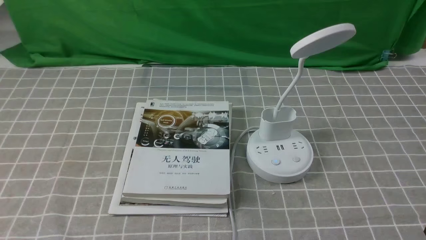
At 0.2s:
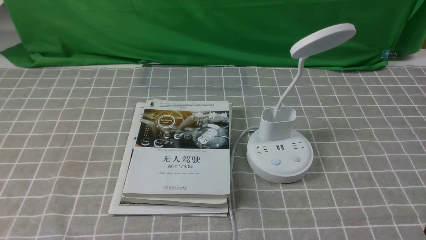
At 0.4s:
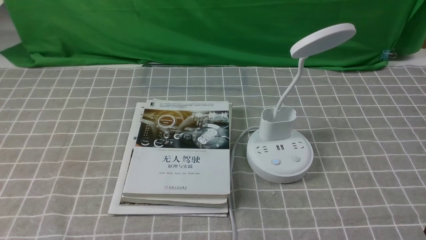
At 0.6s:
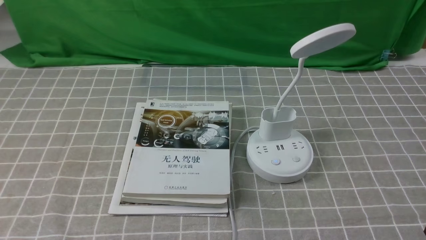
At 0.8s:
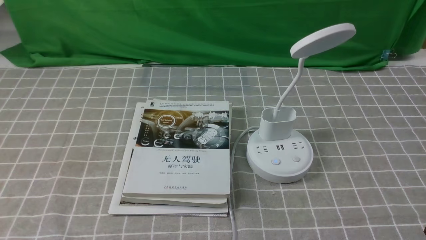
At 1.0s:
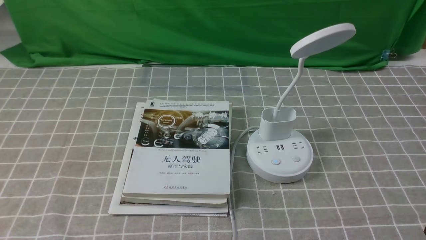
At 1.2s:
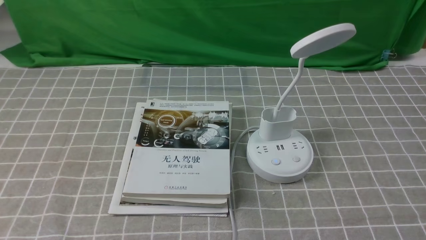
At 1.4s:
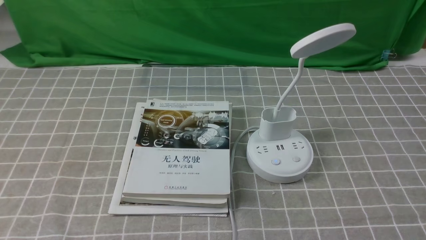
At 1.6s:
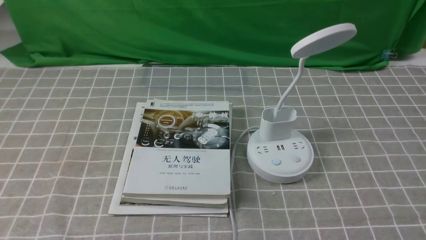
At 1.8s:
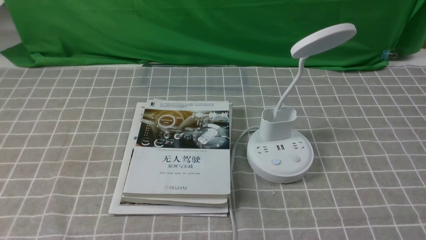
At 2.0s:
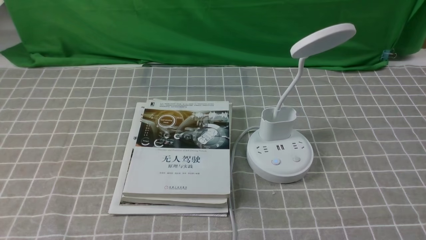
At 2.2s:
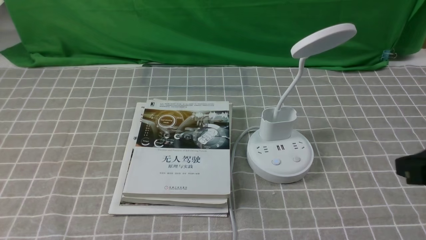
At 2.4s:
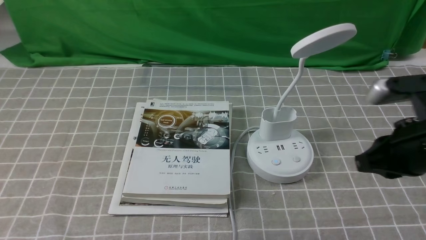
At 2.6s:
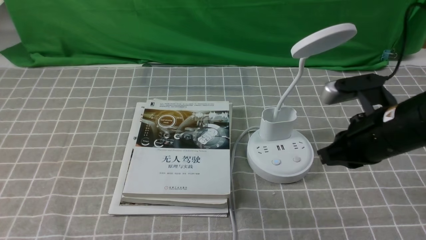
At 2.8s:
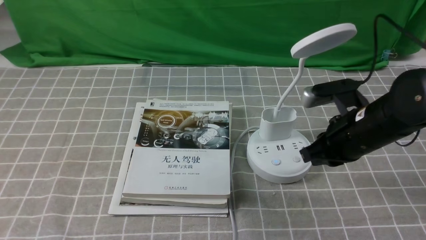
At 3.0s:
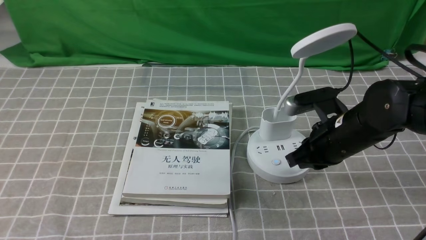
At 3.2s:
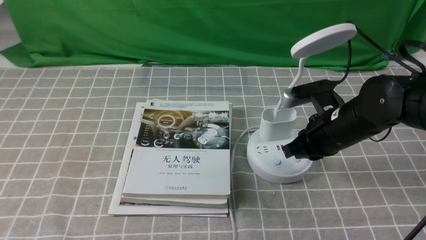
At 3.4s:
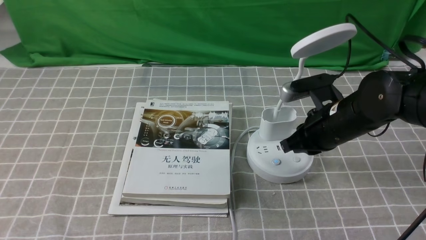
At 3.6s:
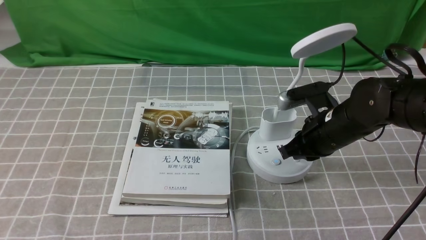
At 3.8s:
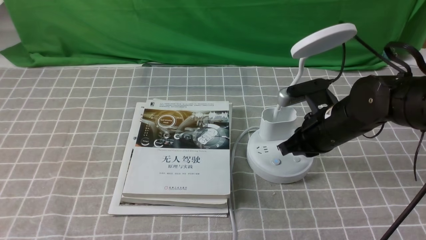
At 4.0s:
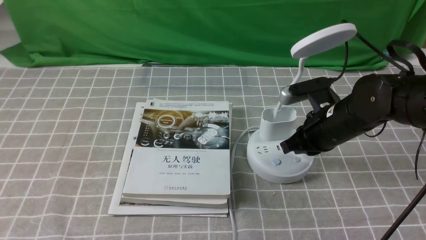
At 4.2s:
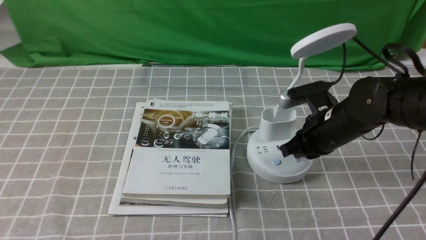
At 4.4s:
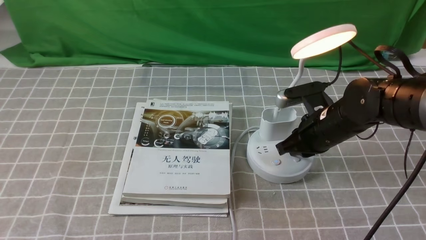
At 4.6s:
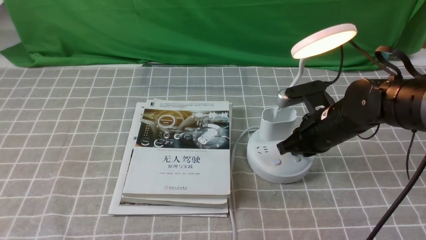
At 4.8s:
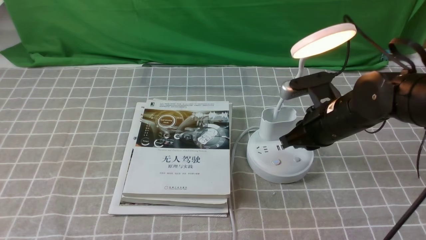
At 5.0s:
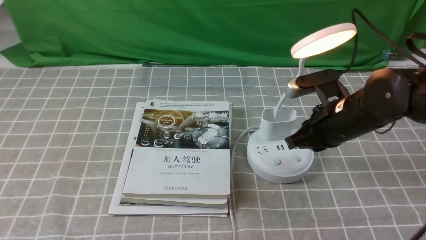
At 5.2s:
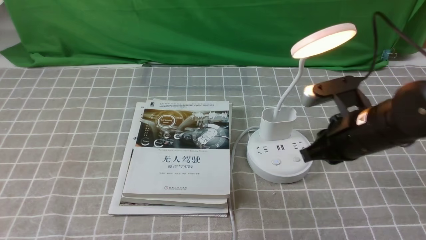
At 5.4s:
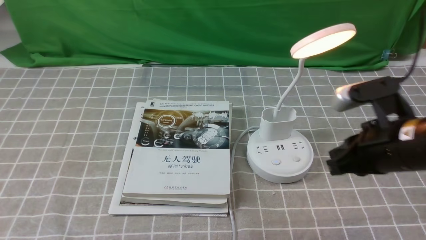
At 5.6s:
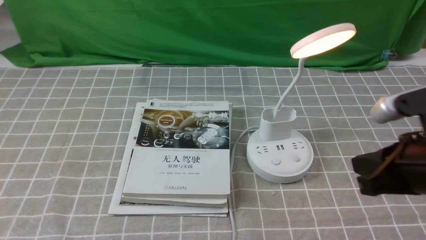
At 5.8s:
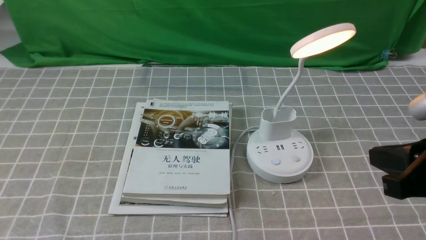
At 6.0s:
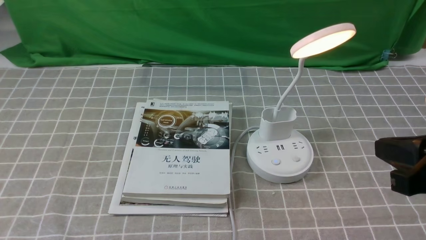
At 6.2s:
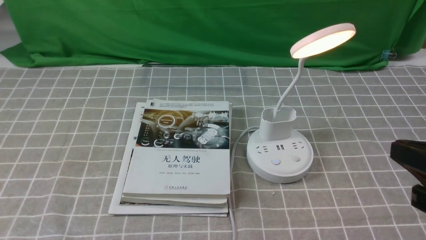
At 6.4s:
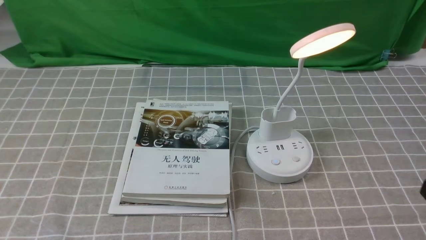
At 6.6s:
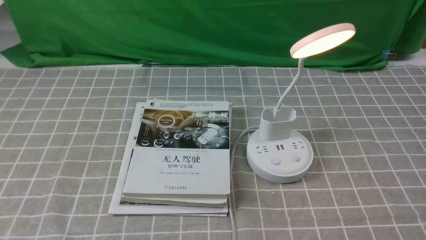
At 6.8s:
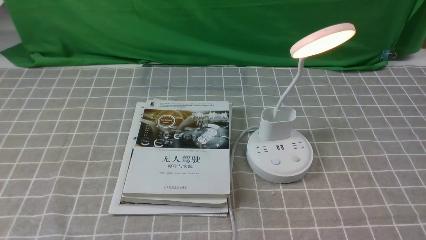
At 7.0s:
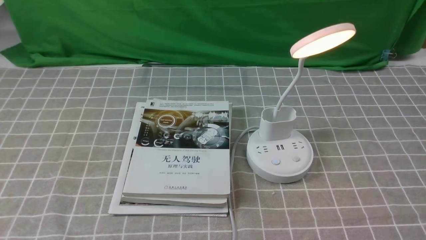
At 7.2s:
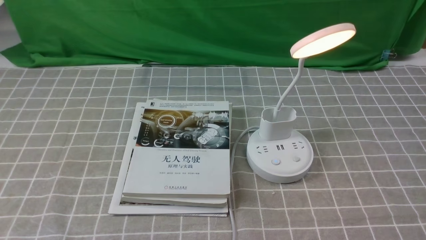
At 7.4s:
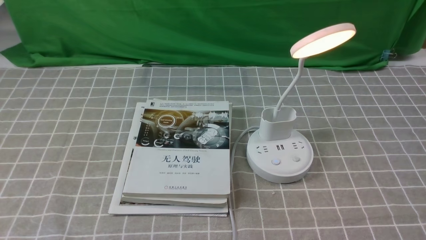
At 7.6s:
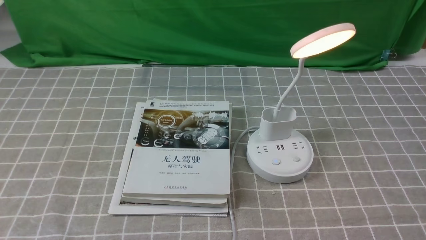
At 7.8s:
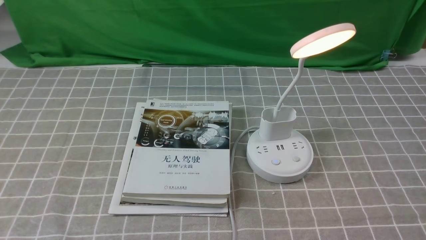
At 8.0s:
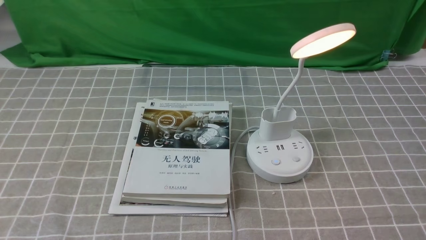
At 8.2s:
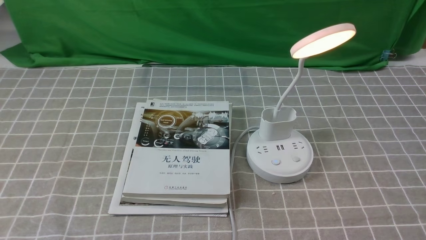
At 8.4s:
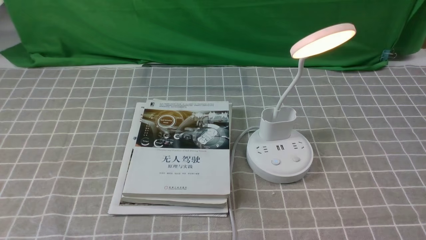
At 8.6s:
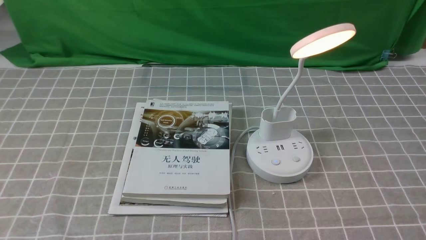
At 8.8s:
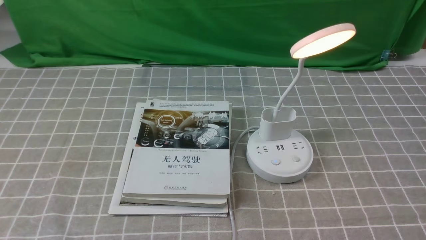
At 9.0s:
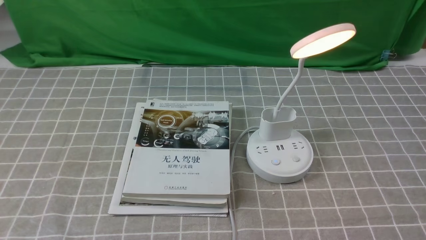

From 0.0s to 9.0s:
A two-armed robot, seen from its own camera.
Step, from 0.0s to 3.8s: use the right arm to press the button switch on the lamp holder.
From 1.6s to 3.0s: The right gripper travels forward and to the left by approximately 30 cm, and closes.
From 3.0s to 4.4s: The grippers make only small movements.
From 4.4s to 6.0s: The right gripper moves backward, upward and to the right, roughly 25 cm.
From 6.0s to 7.6s: The right gripper moves downward, backward and to the right, approximately 15 cm.
From 7.6s to 9.0s: Both grippers stay put.
